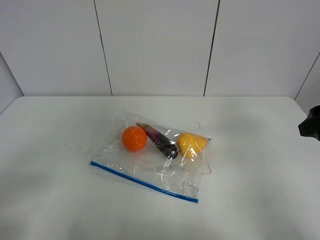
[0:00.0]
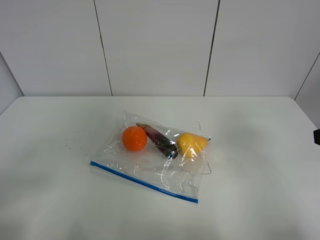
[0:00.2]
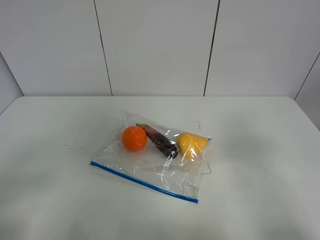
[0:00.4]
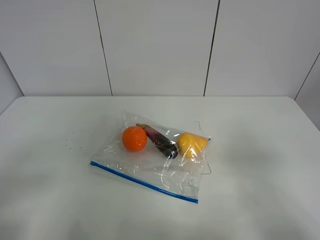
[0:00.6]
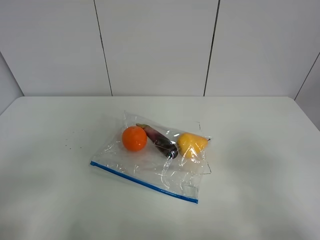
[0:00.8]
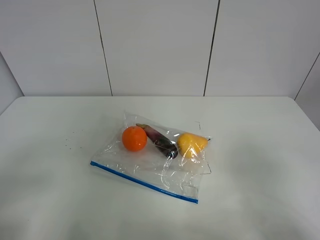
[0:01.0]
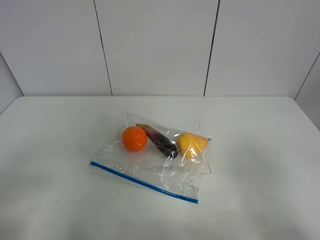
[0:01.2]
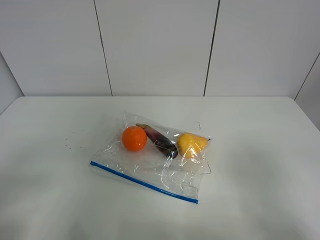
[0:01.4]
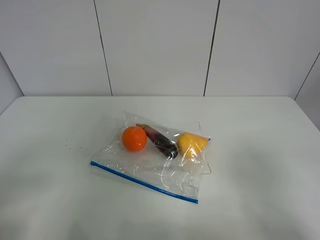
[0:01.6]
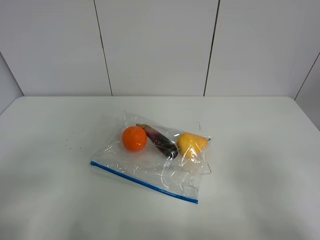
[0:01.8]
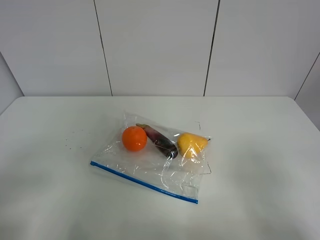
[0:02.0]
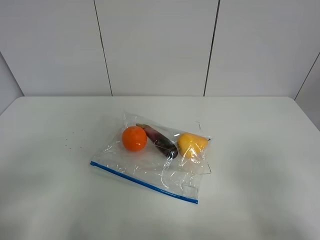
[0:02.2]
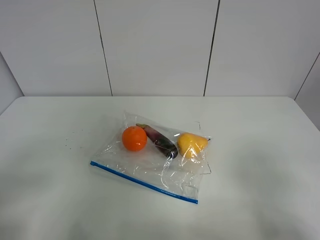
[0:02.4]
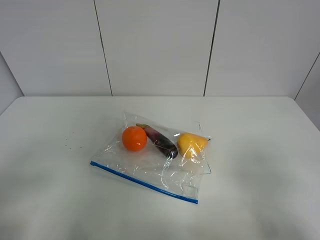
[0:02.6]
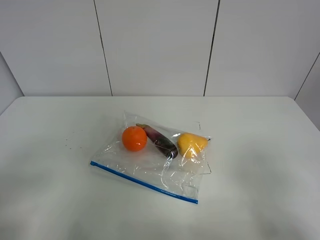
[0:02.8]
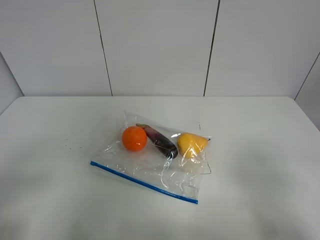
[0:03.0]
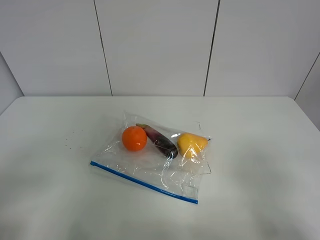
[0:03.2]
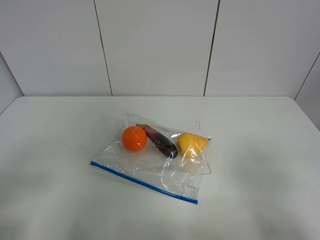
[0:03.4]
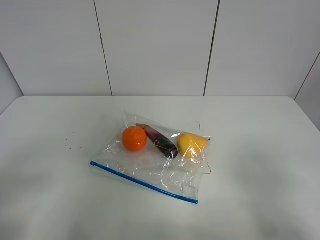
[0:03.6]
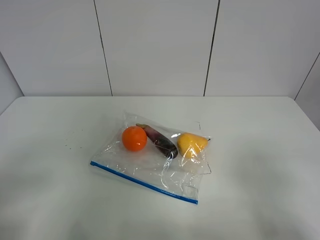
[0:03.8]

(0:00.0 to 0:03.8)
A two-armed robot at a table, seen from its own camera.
0:00.0 - 0:01.2: The right gripper goes about 15 cm backward.
0:02.6 - 0:03.8: Both grippers stay about where they are.

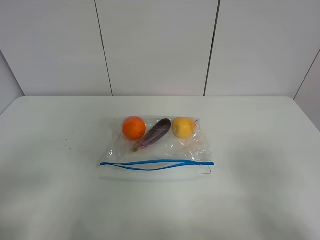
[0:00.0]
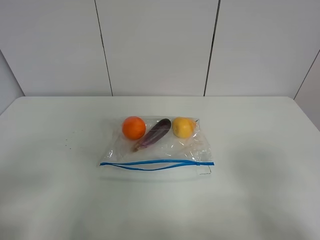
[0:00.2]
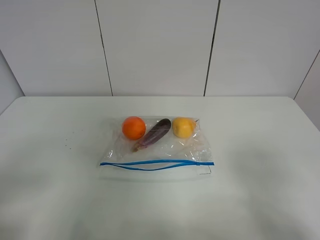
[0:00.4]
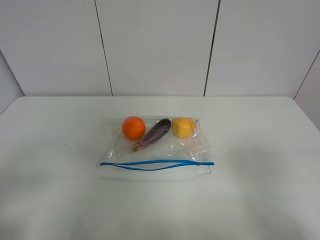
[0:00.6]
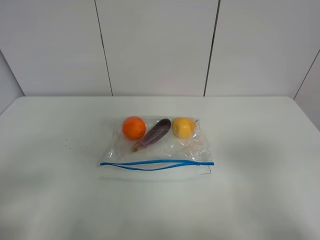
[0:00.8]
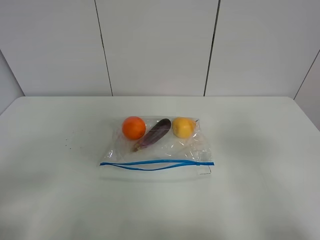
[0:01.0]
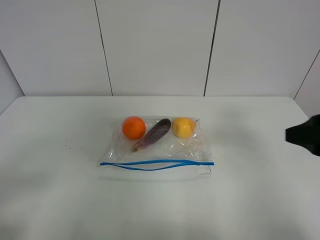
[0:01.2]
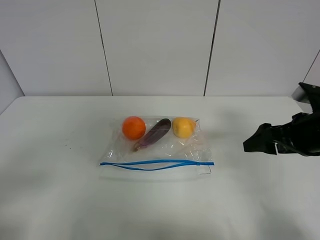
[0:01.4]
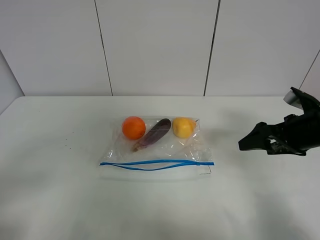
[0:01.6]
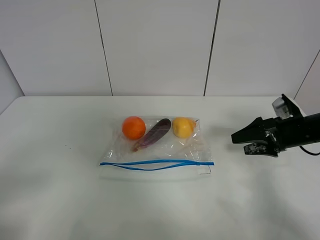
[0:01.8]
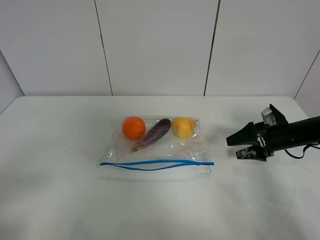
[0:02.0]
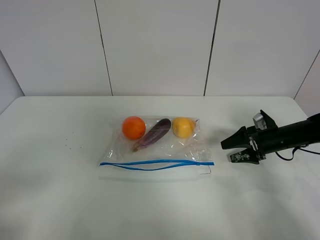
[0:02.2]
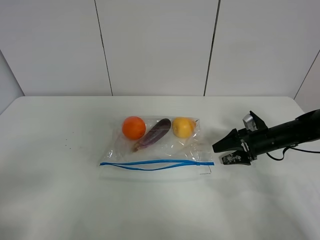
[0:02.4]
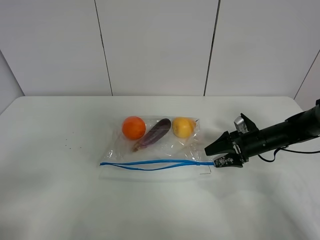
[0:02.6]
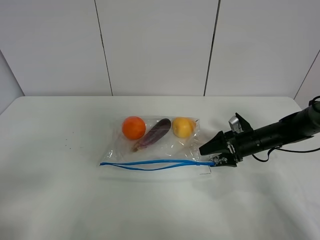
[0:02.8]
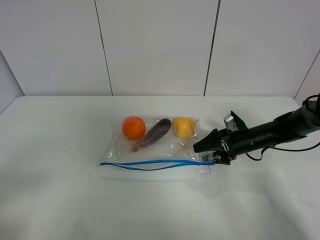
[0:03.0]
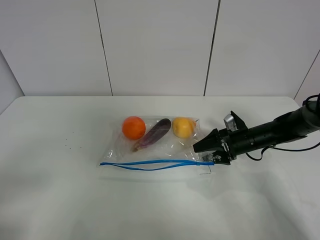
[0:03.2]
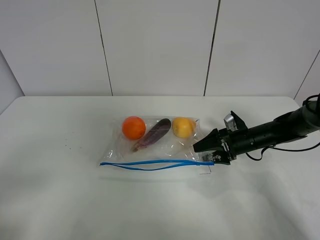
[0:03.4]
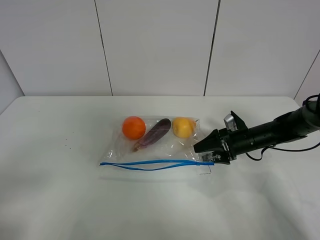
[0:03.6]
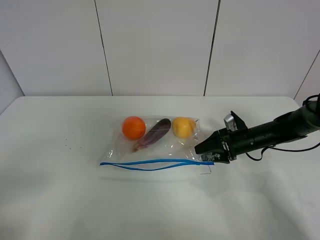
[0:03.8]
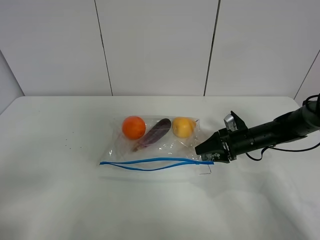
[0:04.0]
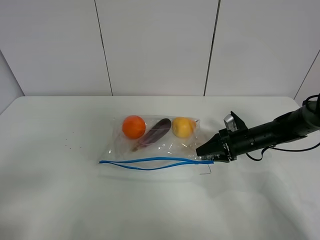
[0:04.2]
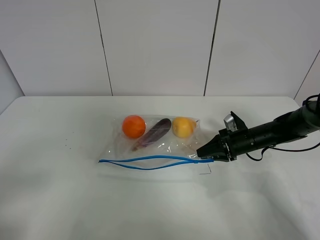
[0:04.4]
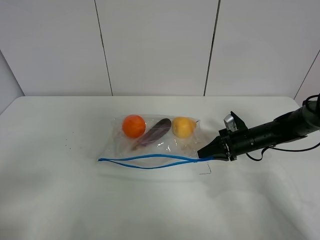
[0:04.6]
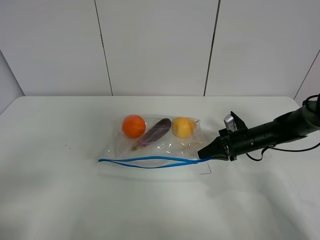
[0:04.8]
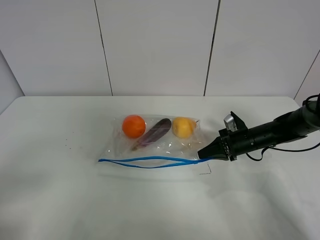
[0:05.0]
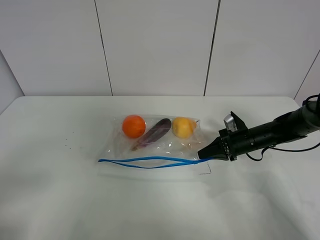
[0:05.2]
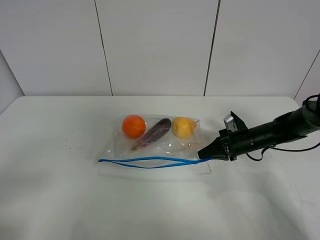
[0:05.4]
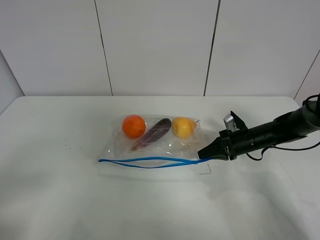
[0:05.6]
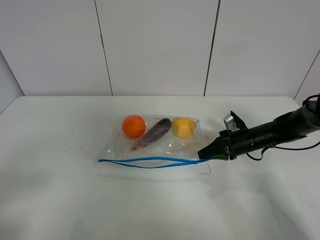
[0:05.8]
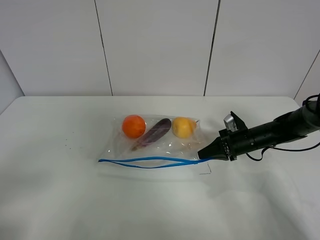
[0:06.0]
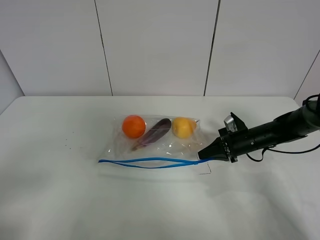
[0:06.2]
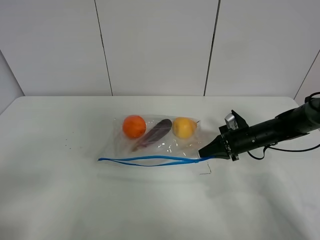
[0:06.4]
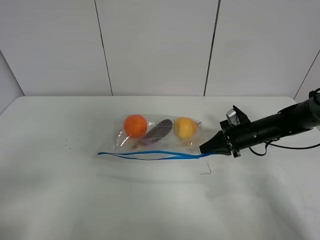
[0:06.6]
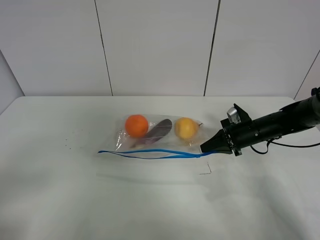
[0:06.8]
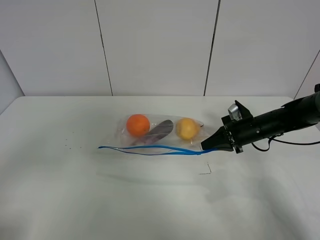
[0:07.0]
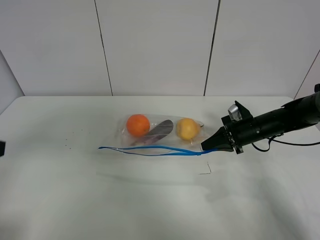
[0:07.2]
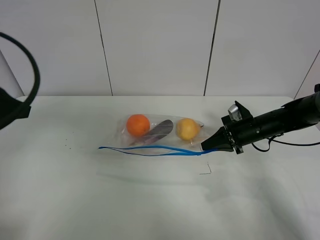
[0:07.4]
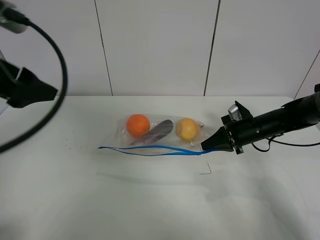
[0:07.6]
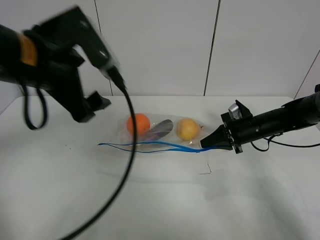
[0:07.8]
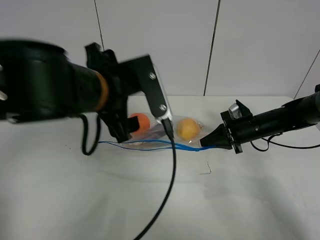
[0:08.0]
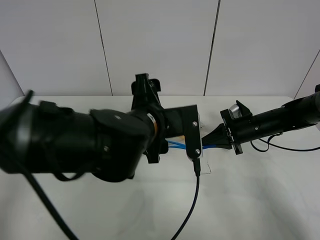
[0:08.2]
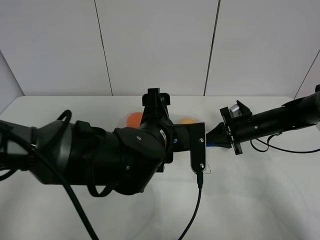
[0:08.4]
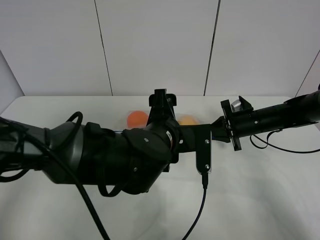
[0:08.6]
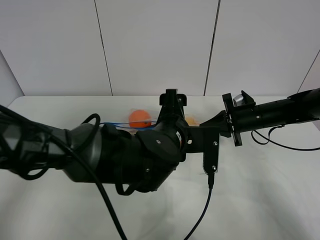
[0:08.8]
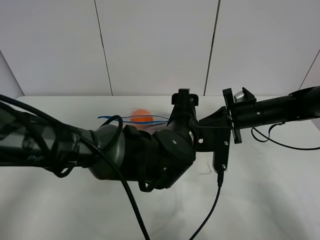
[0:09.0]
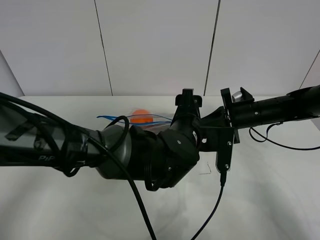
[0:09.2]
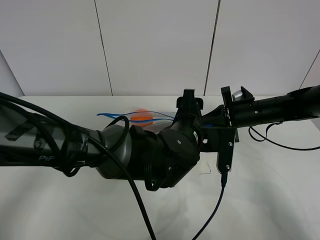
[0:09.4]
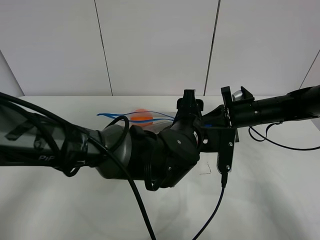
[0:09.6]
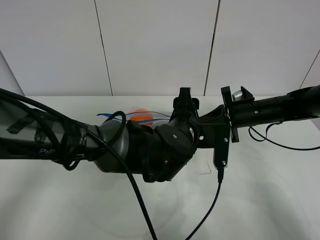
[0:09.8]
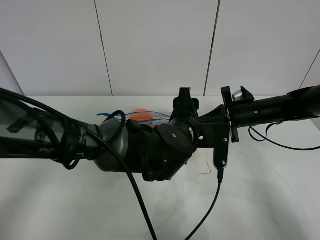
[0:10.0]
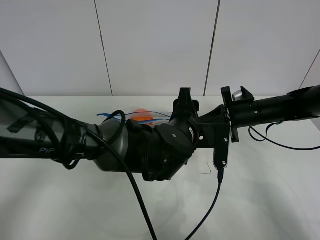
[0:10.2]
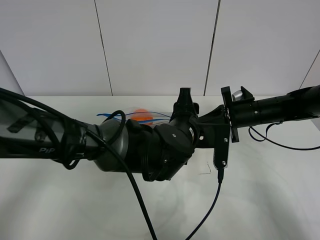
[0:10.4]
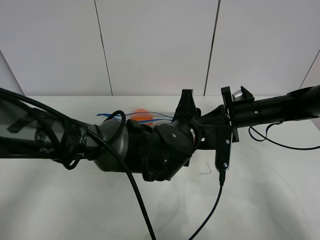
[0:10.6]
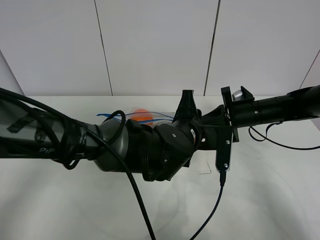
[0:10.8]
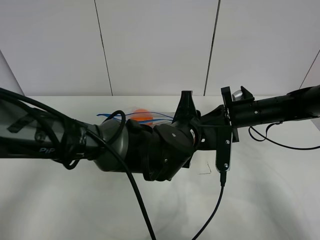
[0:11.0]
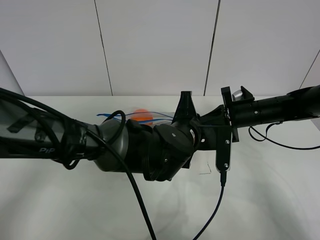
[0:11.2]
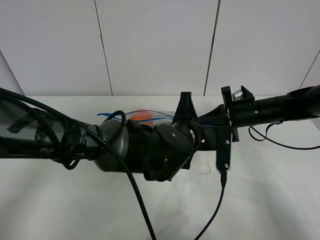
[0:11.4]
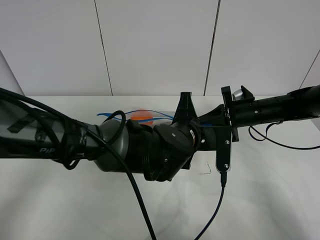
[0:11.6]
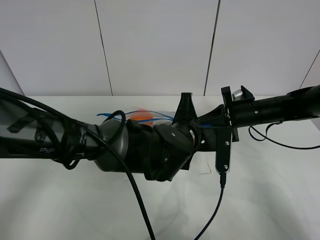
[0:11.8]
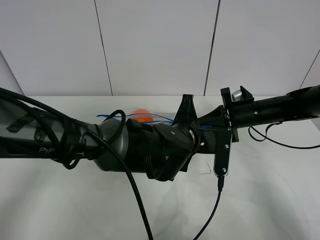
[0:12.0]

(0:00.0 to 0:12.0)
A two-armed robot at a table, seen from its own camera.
Step, 0:00.0 - 0:05.0: Grasp the fruit bag with right gripper.
0:00.0 - 0:01.6: The right gripper is displaced forward by some 25 cm.
0:01.6 - 0:03.0: The right gripper is displaced downward, forward and to the left by some 15 cm.
0:03.0 - 0:04.4: The right gripper closes up.
0:04.4 - 0:06.0: The two grippers keep their place.
0:06.0 - 0:07.6: The left gripper moves forward and upward, about 25 cm.
0:07.6 - 0:09.0: The left gripper goes about 35 cm to the right and downward.
0:09.0 - 0:10.4: The left gripper closes up.
0:10.4 - 0:12.0: The left gripper closes its fingers.

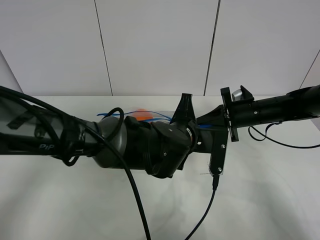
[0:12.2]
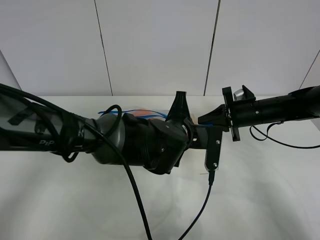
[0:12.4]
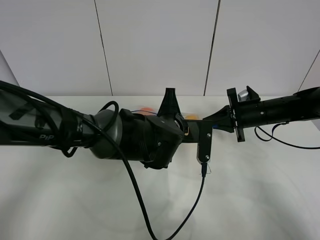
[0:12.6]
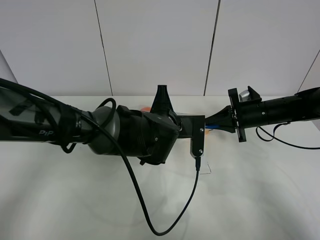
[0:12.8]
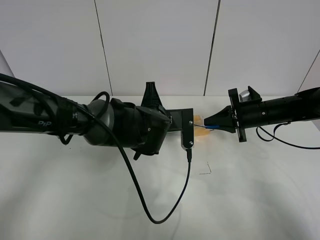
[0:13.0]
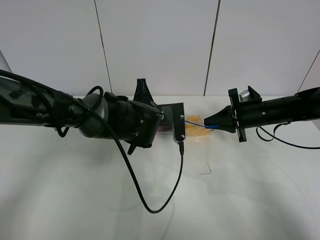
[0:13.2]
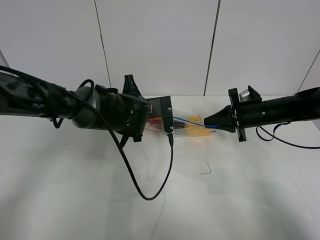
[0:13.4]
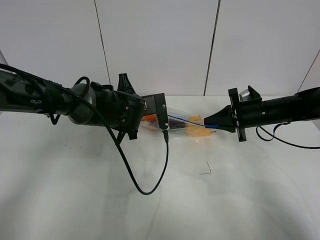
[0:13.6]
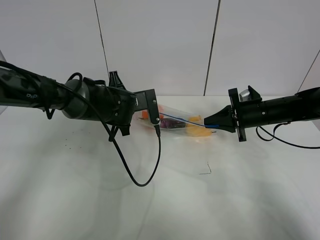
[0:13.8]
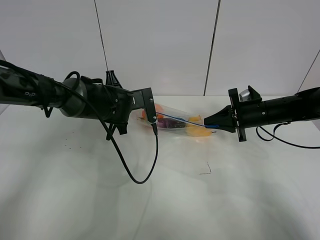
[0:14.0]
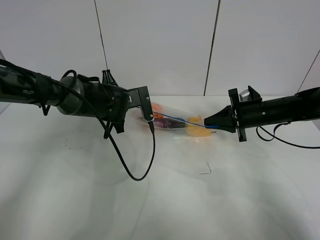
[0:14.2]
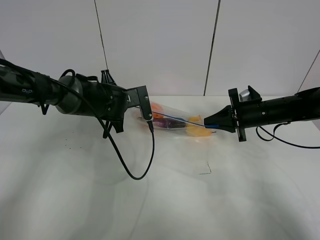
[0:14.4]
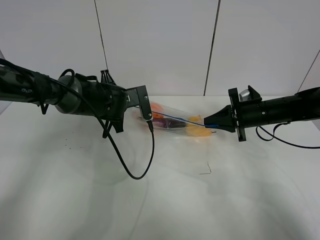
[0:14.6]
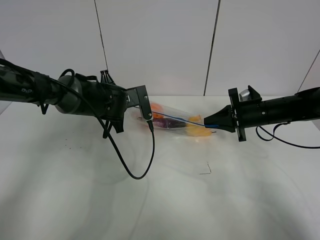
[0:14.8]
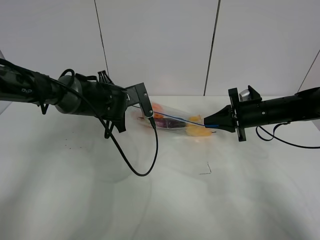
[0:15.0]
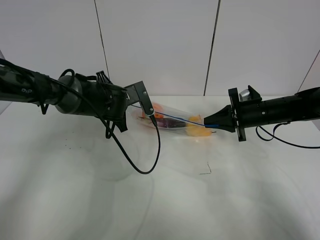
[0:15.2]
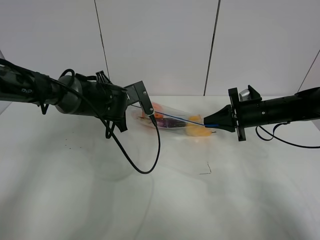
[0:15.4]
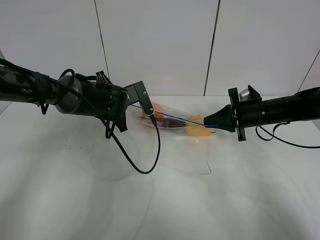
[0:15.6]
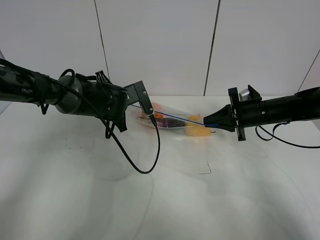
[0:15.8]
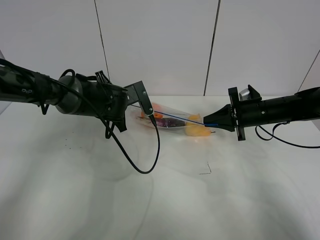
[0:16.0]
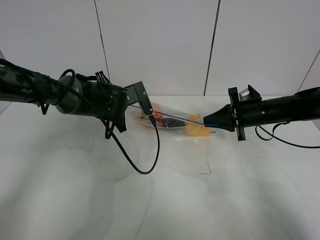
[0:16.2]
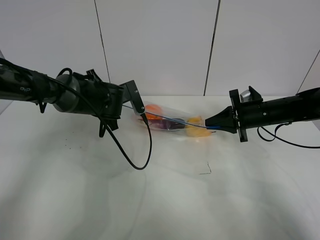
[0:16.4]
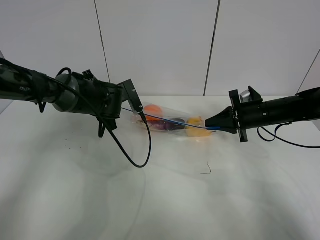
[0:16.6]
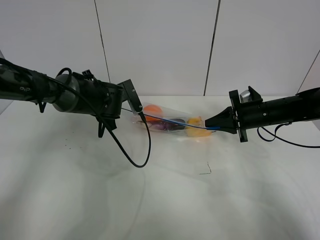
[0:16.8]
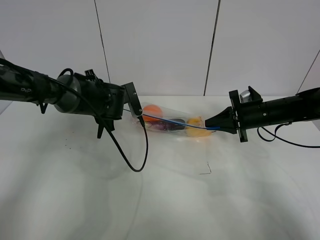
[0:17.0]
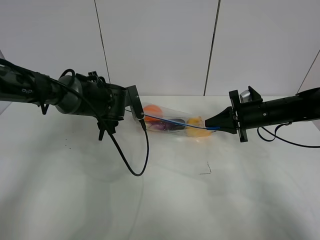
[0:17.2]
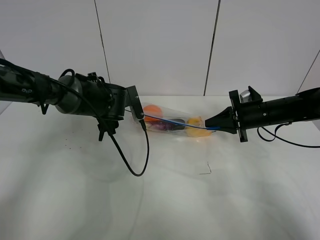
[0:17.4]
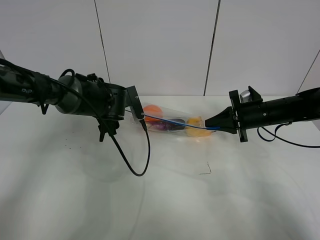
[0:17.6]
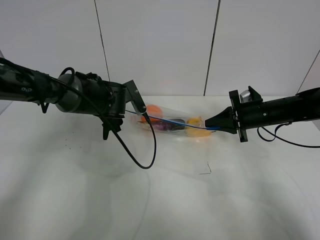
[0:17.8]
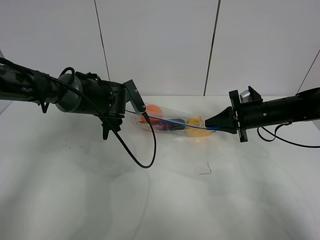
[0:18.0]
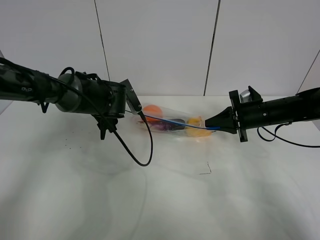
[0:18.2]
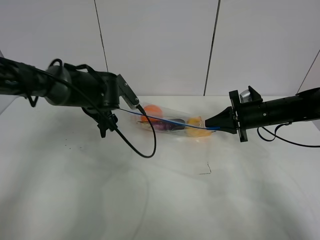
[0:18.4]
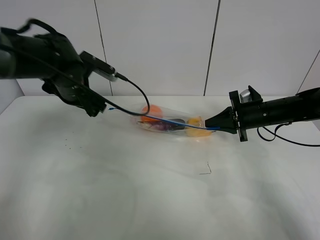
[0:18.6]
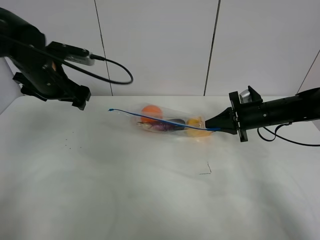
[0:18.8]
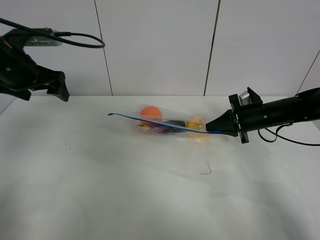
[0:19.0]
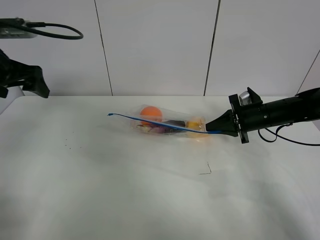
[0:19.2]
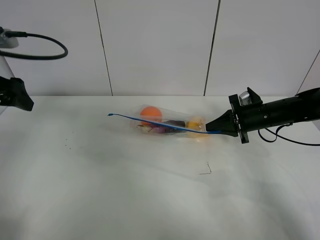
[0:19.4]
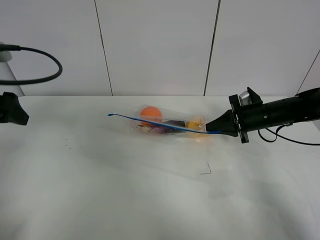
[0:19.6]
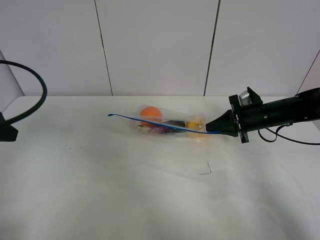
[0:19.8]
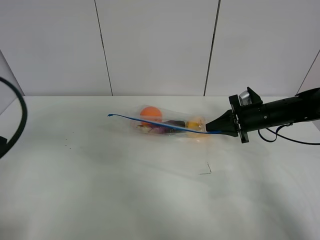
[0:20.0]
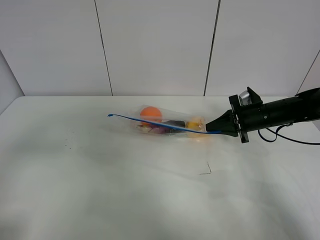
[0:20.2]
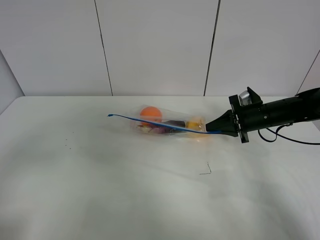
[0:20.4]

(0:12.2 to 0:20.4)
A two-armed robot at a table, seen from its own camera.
Step, 0:12.2 - 0:16.6: Pull the fruit bag with left gripper.
0:12.2 - 0:13.8: The left gripper moves to the left and forward, some 15 cm.
0:13.8 - 0:15.4: There are only small adjustments of the grippers.
0:15.4 - 0:17.2: The left gripper opens.
0:17.2 - 0:18.8: The left gripper is displaced to the left and upward by approximately 15 cm.
0:18.8 - 0:20.4: The left gripper is displaced backward by some 30 cm.
